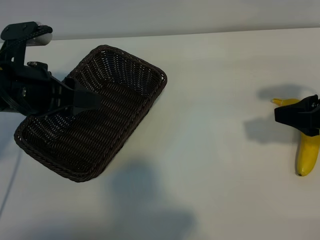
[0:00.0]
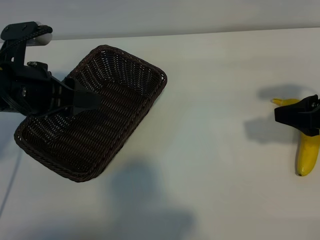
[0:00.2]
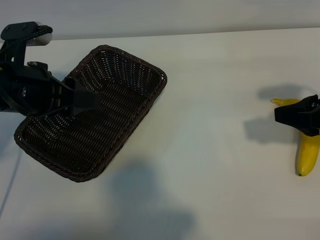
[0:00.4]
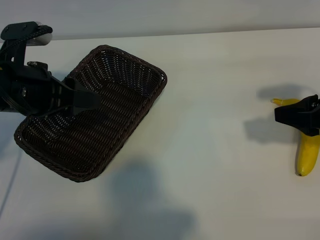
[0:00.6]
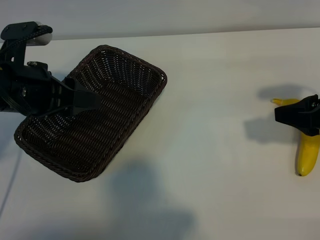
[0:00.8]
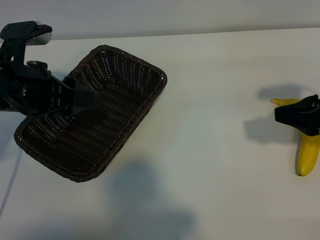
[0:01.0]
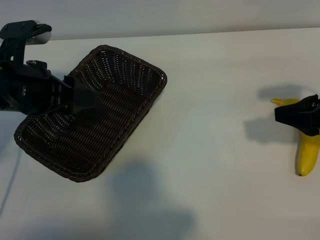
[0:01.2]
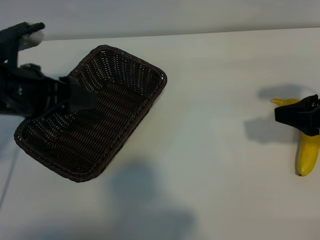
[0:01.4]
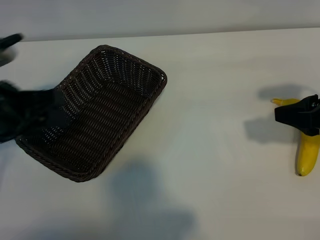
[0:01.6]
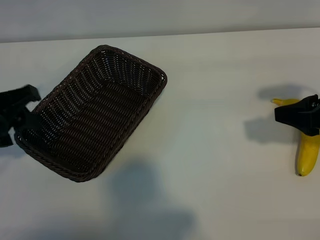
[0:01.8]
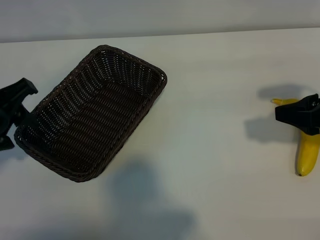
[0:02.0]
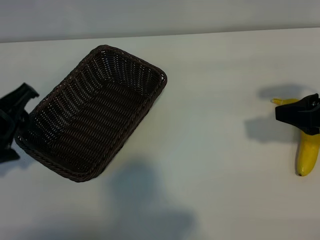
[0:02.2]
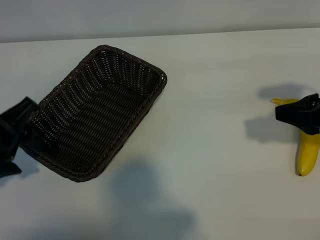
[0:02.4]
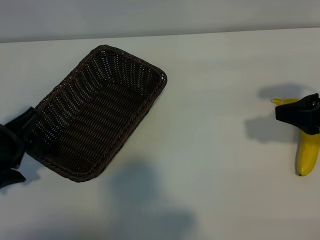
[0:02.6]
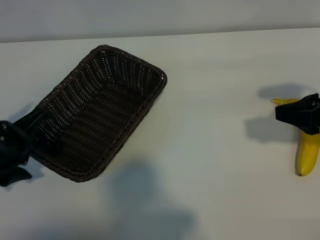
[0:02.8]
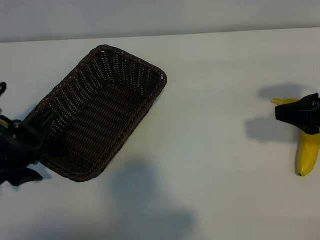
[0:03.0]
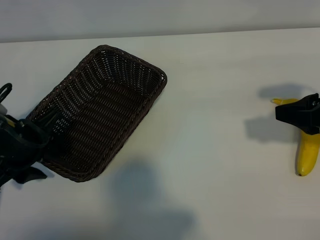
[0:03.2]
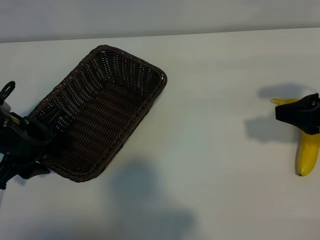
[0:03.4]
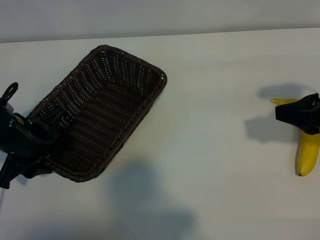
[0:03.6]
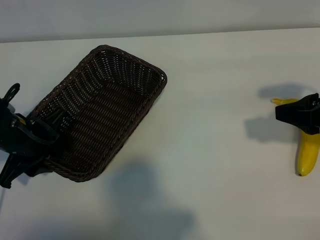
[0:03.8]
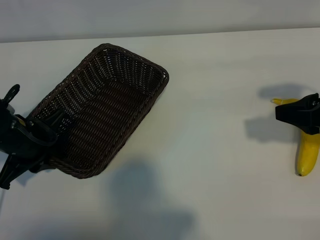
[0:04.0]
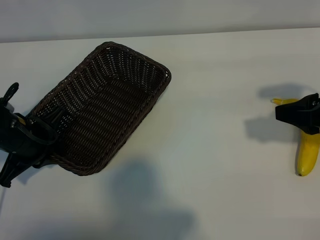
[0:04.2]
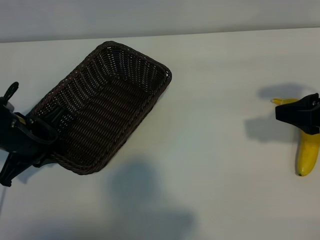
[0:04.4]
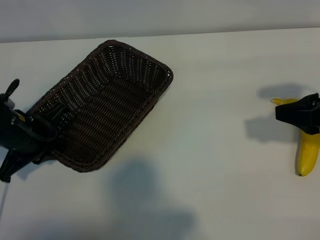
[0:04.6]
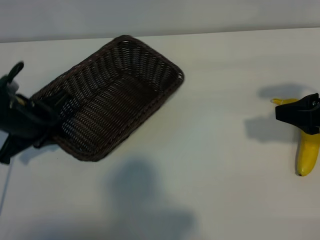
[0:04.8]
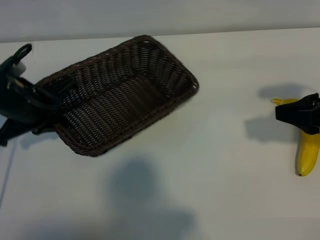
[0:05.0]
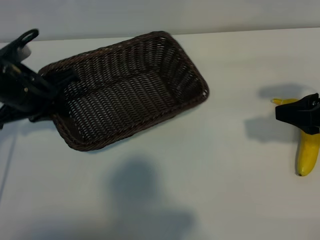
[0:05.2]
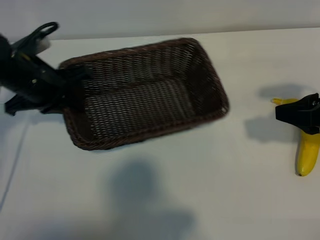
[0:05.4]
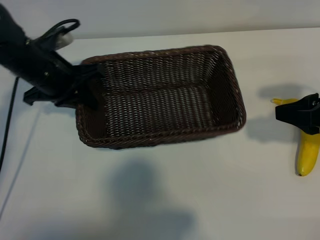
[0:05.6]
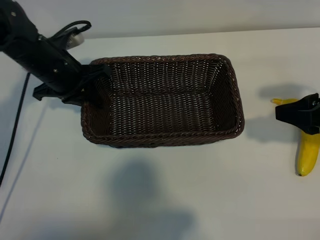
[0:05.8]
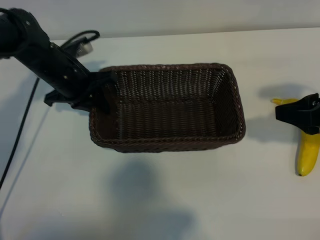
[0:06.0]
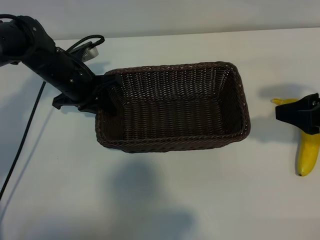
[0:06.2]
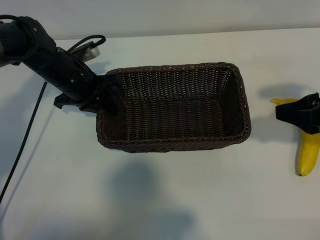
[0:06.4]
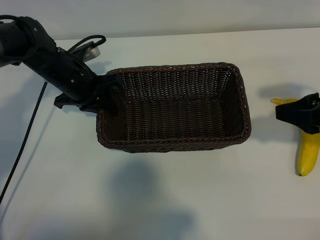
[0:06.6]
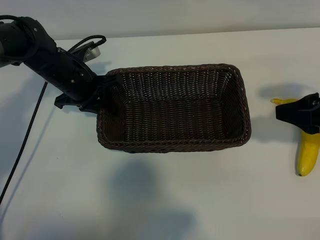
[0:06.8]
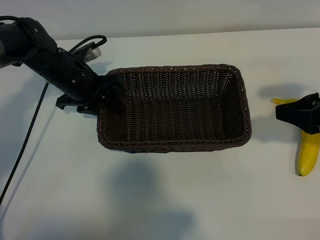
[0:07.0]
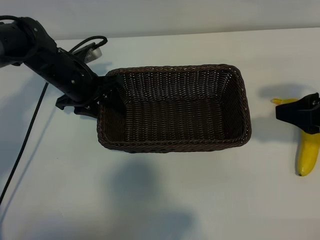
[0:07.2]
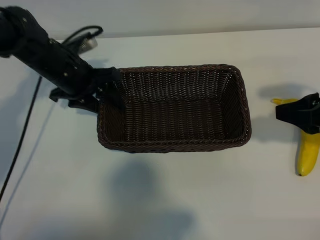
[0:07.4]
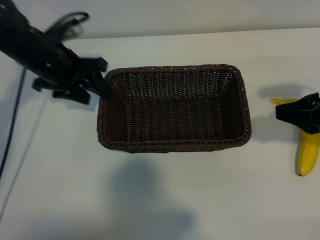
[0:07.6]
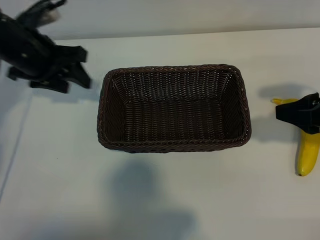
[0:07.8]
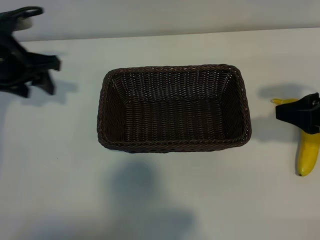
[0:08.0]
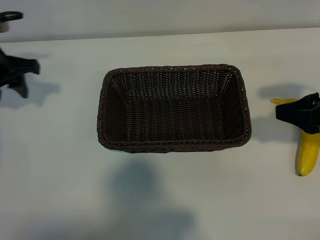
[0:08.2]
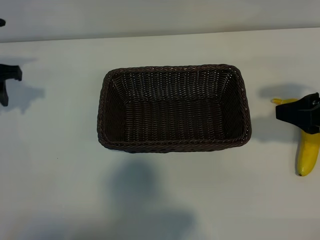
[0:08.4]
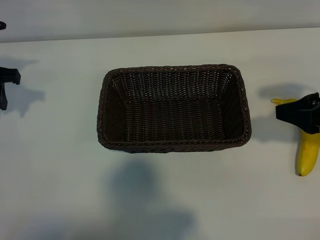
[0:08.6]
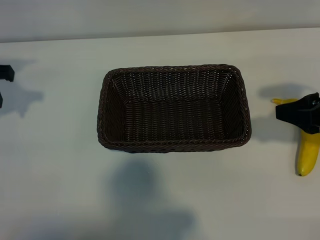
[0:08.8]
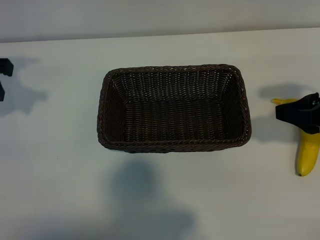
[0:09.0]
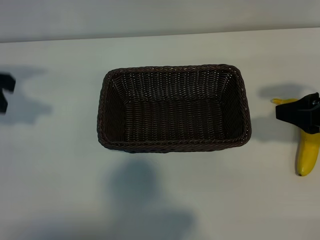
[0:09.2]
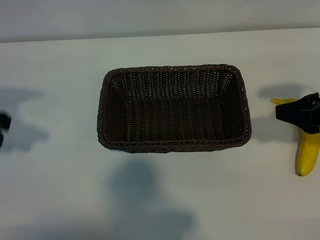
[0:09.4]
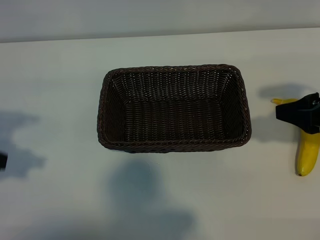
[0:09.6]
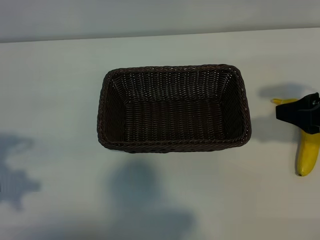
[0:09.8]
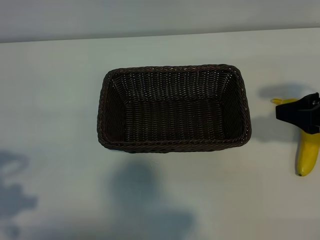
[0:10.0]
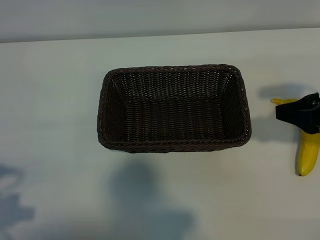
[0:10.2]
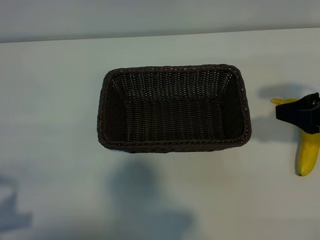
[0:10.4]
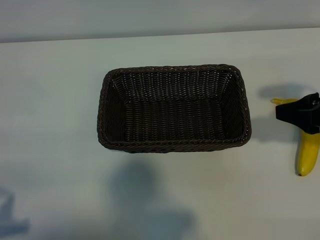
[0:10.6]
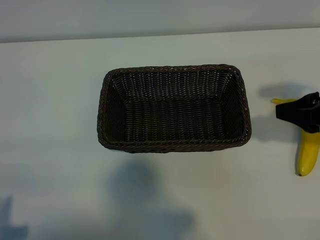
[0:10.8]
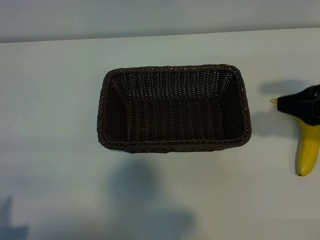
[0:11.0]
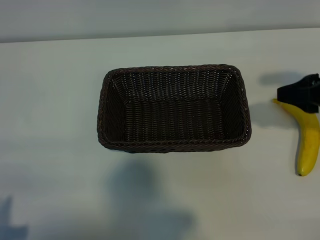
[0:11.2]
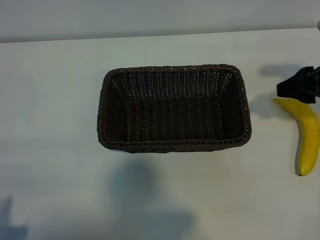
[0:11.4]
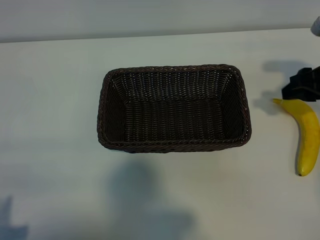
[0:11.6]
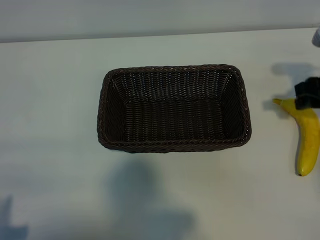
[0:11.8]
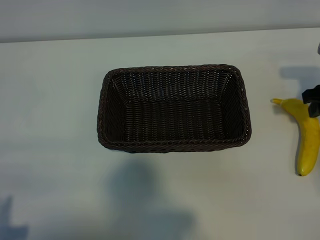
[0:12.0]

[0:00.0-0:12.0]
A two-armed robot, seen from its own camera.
Task of the whole recording: pick up the banana and put it into the basket.
Step, 0:01.0 to 0:04.4: Grasp the basket with the left gripper.
Step, 0:04.6 to 0:07.4: Place the basket in the center of the table with the left gripper.

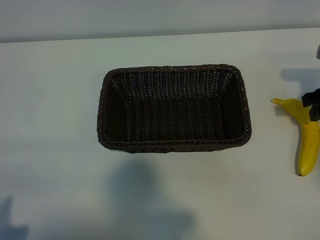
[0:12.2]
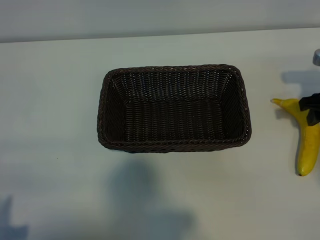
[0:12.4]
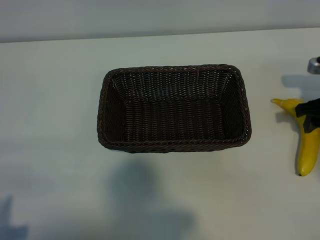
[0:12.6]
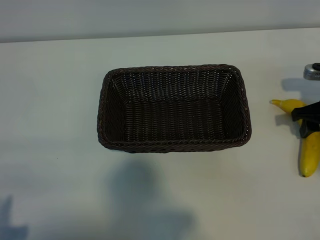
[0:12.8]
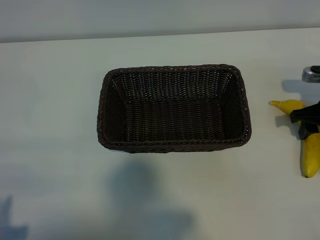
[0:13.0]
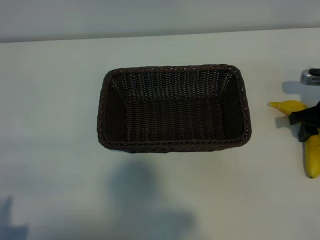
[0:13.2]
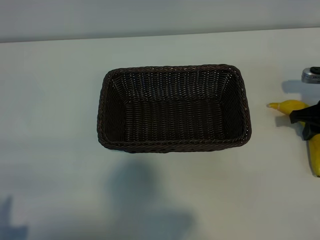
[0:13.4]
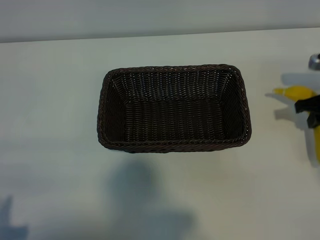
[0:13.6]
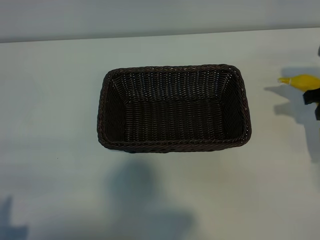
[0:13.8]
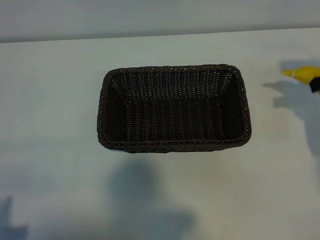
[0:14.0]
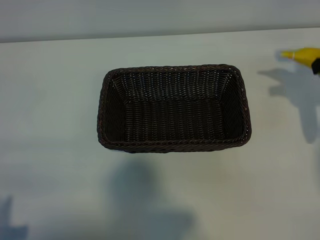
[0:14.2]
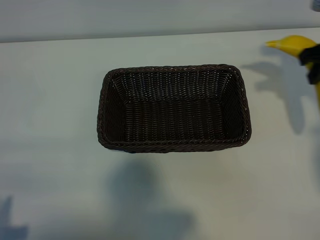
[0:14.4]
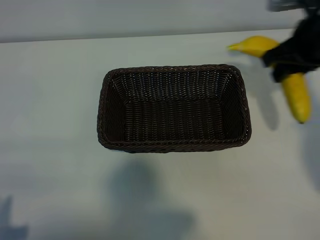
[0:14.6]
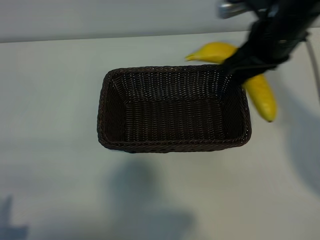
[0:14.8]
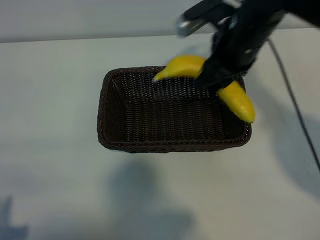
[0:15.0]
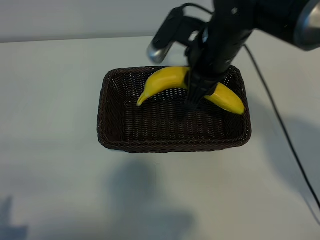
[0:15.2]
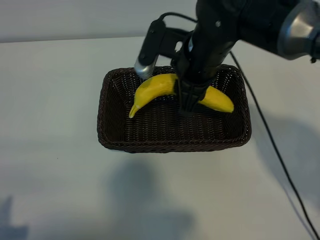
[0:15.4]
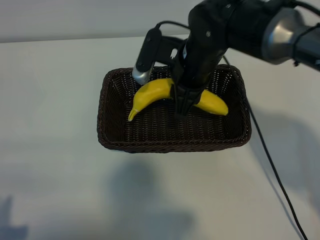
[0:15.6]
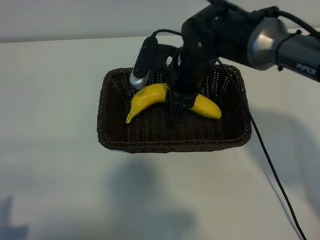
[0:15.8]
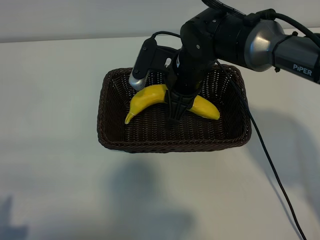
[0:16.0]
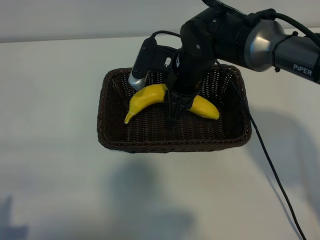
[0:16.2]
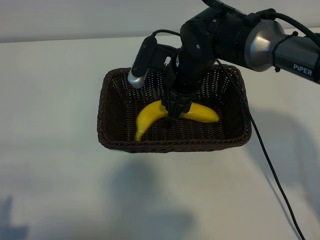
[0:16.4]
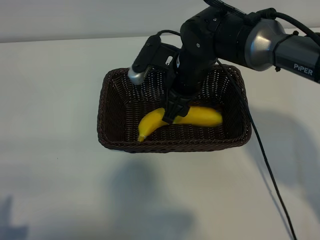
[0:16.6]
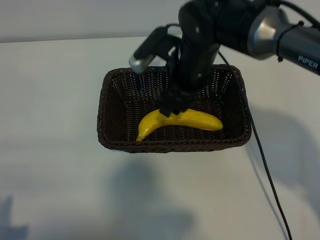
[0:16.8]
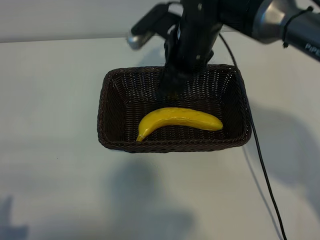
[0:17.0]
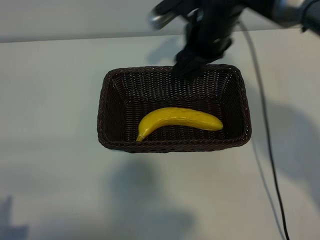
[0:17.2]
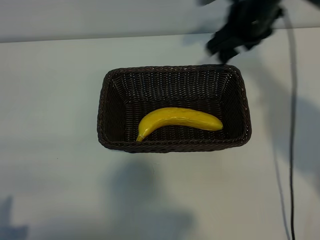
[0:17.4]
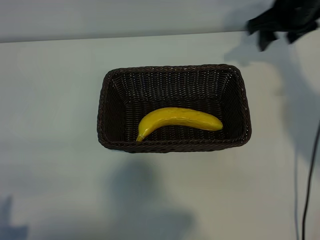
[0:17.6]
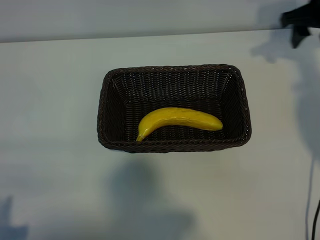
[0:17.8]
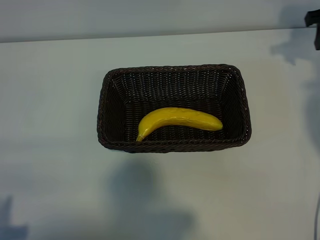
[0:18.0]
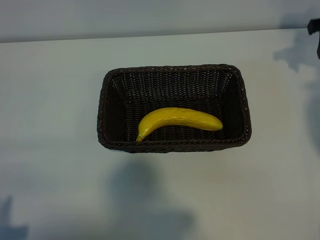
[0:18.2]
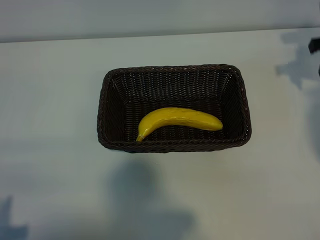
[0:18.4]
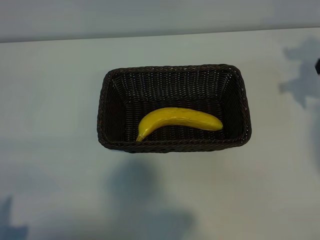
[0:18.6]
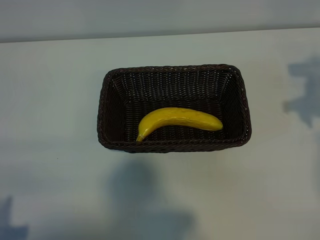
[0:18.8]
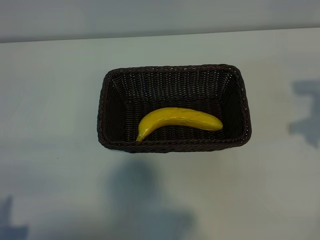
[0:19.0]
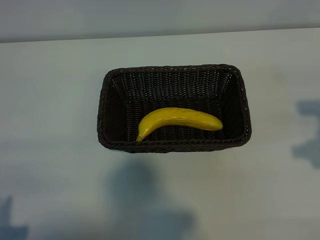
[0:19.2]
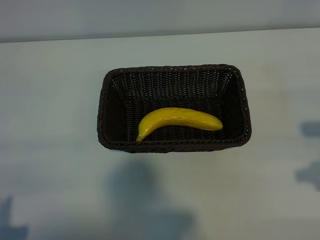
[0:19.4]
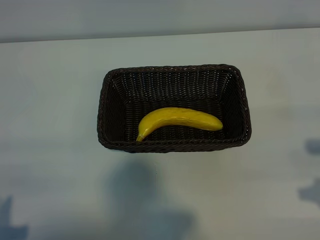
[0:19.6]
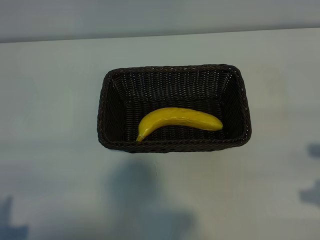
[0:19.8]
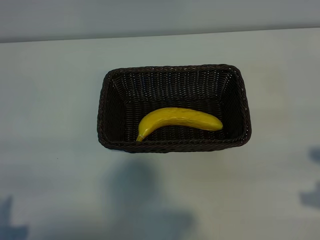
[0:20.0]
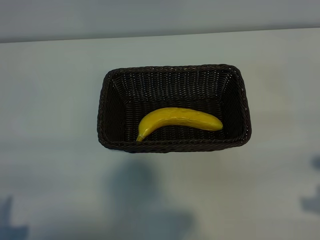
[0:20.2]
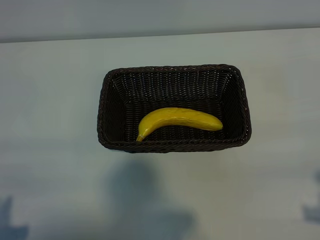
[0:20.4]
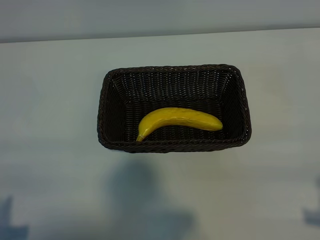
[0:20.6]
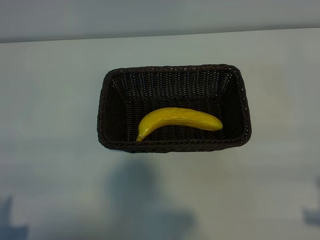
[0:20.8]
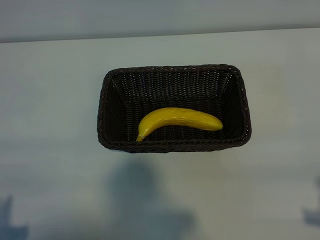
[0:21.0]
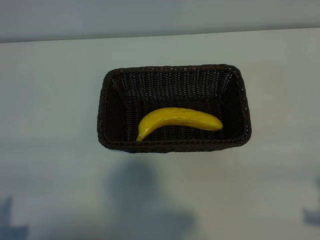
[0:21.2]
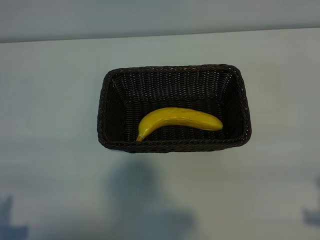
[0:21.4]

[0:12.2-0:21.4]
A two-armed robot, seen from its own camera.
Task of the whole recording: pick up the banana and put it into the basket.
Step, 0:13.4 to 0:16.8: Place the banana in the basket with right gripper.
